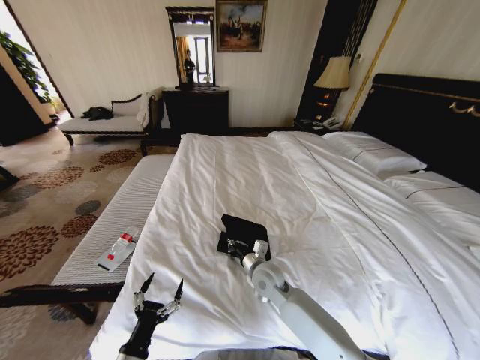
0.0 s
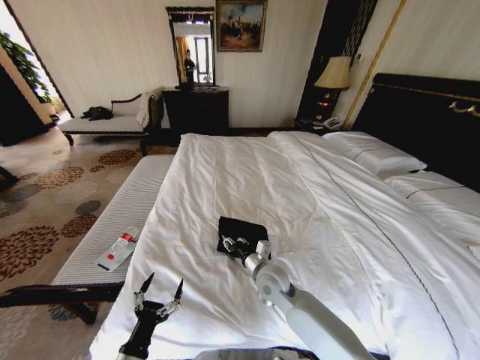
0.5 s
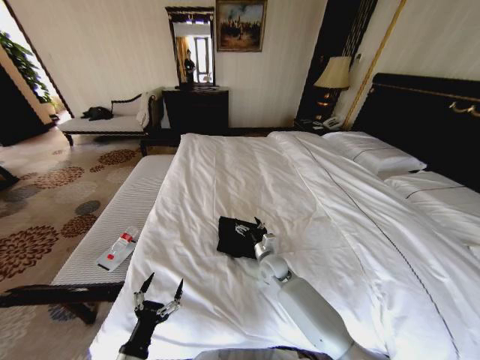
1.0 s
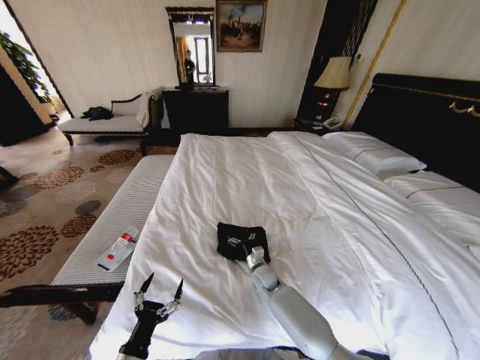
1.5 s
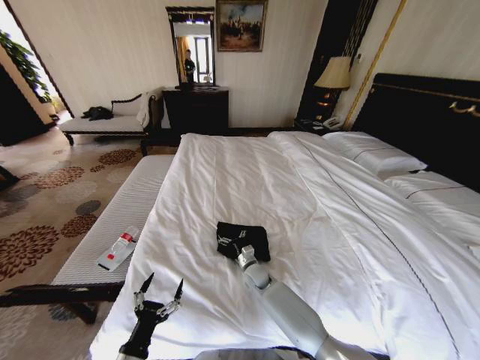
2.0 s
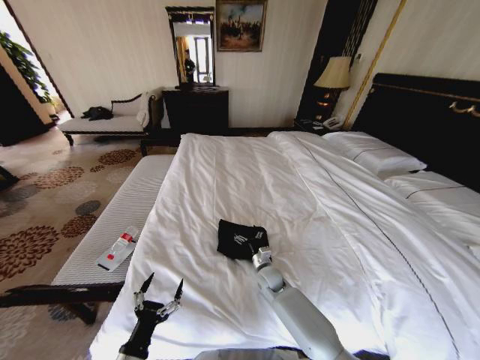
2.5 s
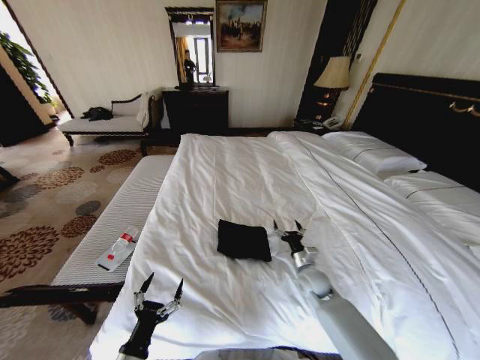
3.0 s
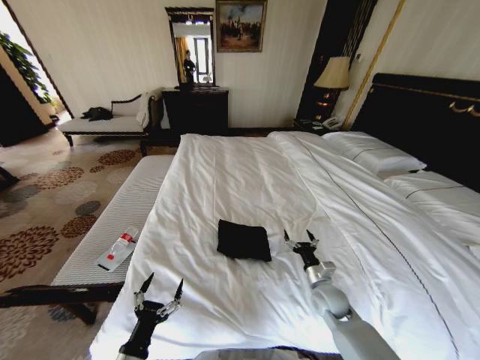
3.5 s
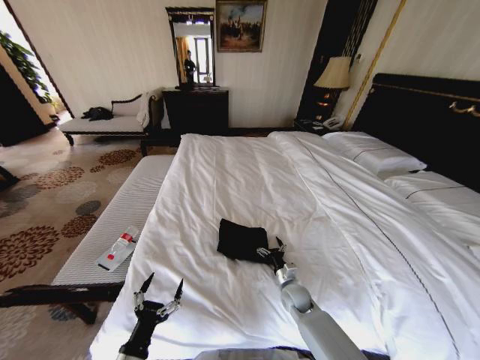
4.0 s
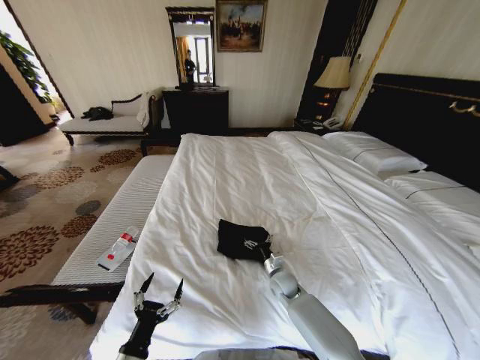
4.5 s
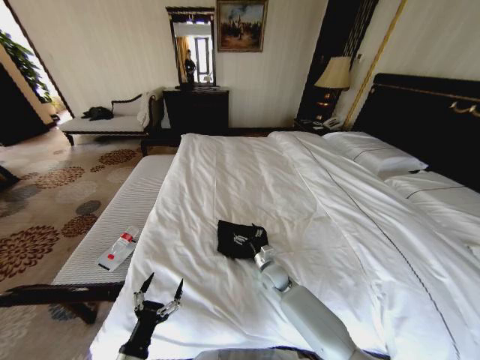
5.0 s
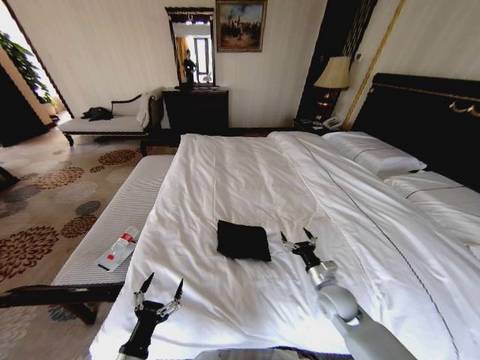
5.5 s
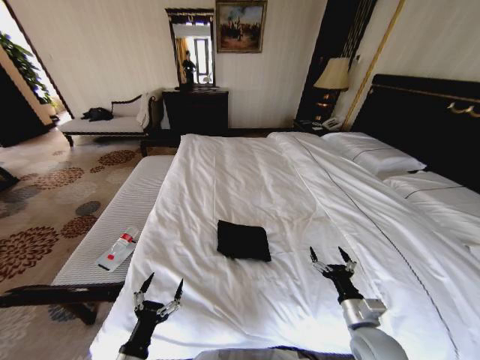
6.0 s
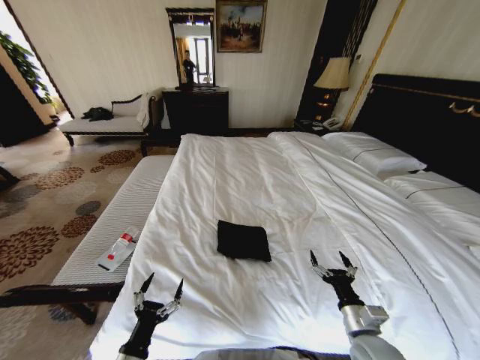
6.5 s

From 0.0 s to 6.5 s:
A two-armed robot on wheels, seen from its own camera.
Task of the whole recording: Fold the clothes on the bed.
From 0.0 s to 2.0 s: The right gripper heads downward and forward, covering approximately 15 cm, and opens.
From 2.0 s to 4.5 s: The right gripper heads to the right, covering approximately 10 cm.
From 4.5 s to 6.5 s: The right gripper travels backward, to the right and upward by about 25 cm.

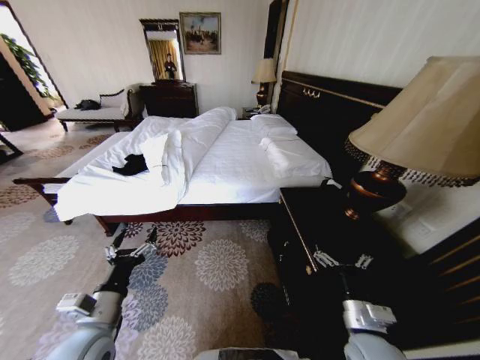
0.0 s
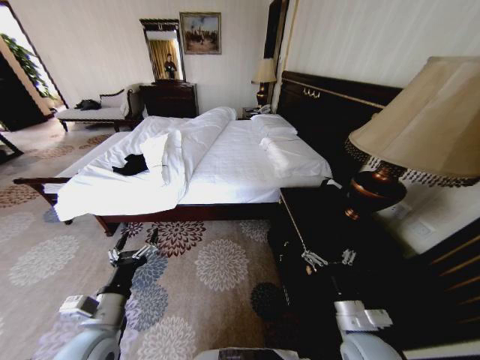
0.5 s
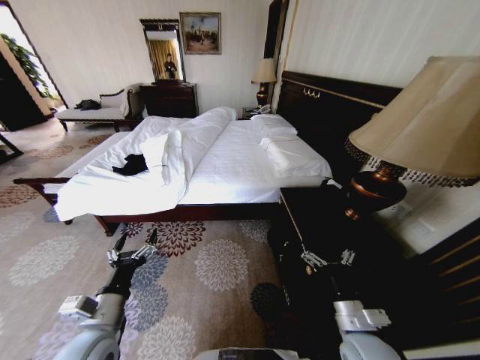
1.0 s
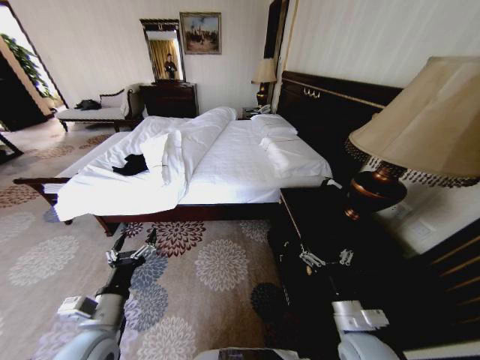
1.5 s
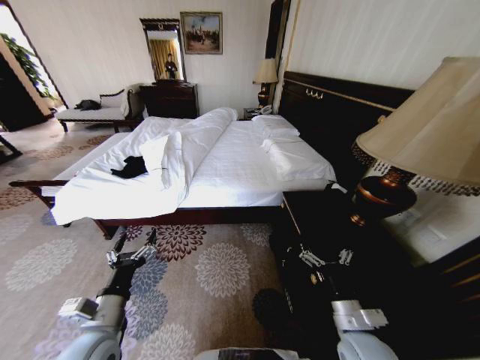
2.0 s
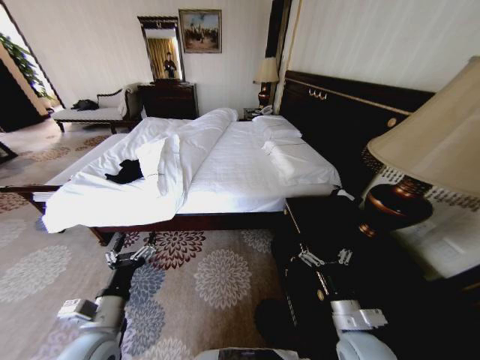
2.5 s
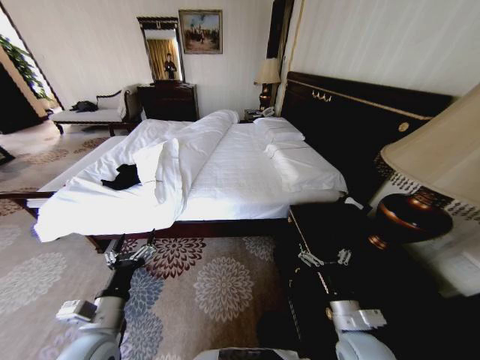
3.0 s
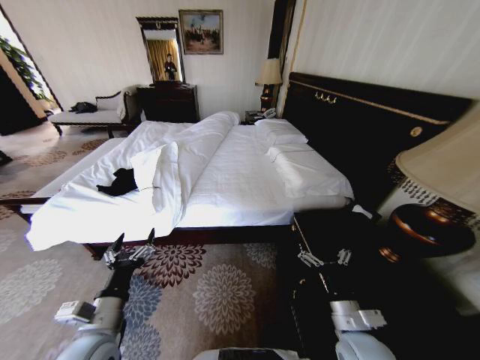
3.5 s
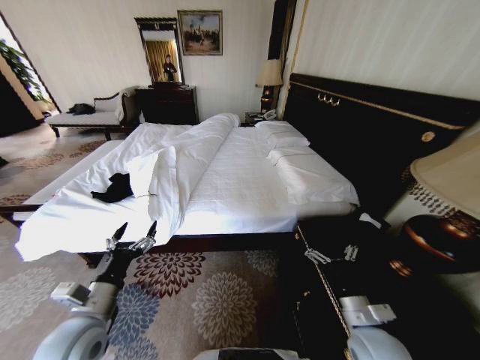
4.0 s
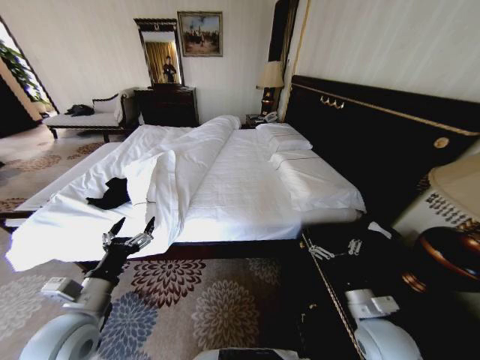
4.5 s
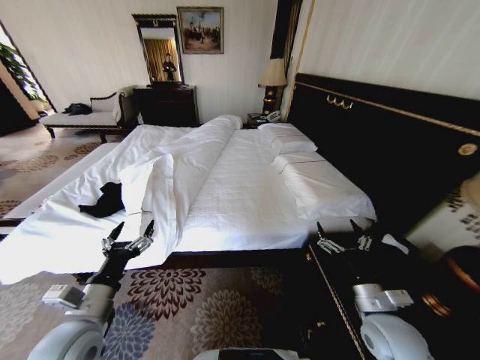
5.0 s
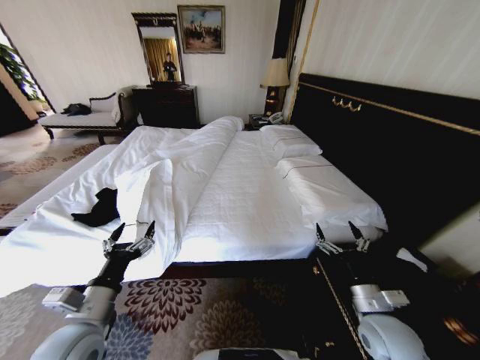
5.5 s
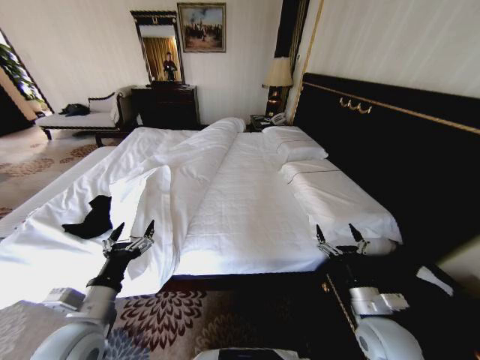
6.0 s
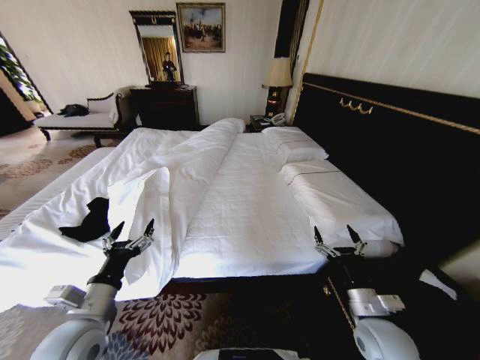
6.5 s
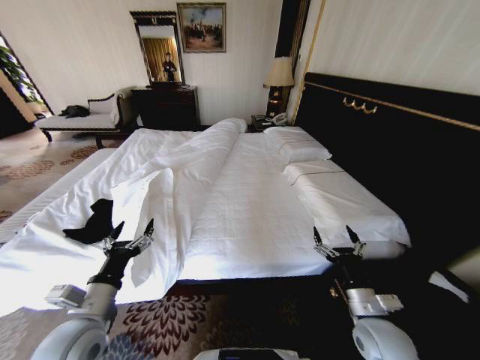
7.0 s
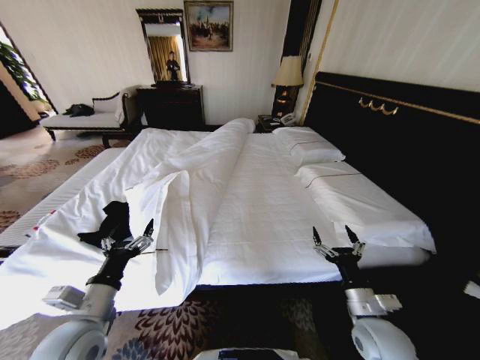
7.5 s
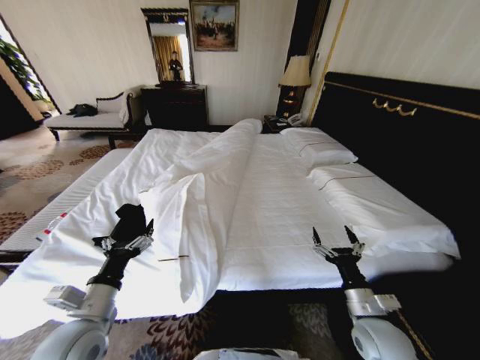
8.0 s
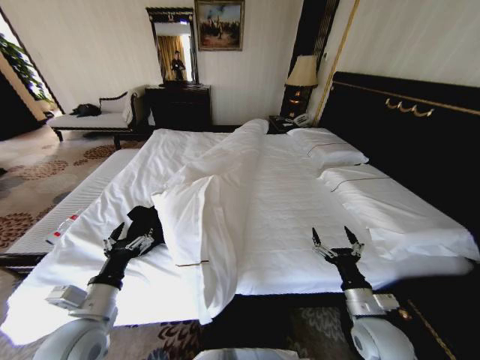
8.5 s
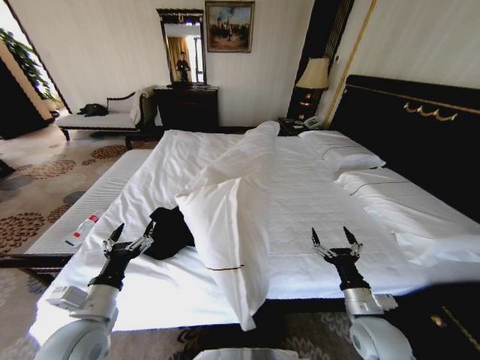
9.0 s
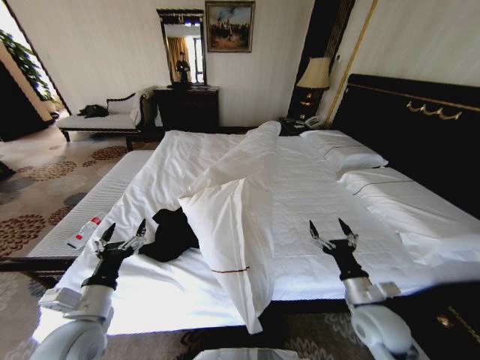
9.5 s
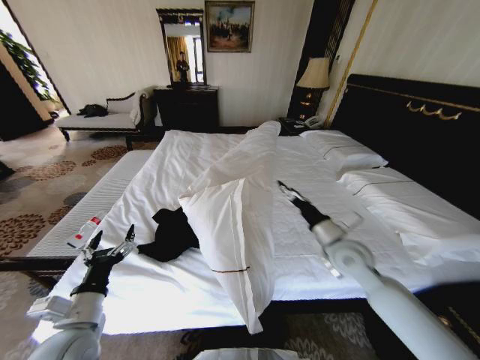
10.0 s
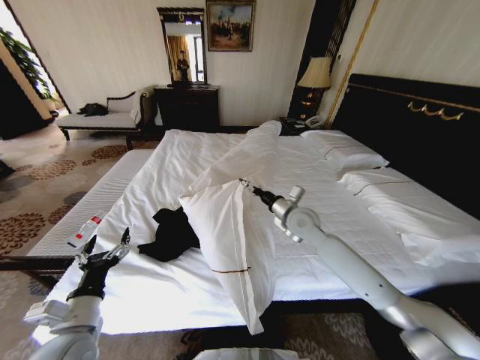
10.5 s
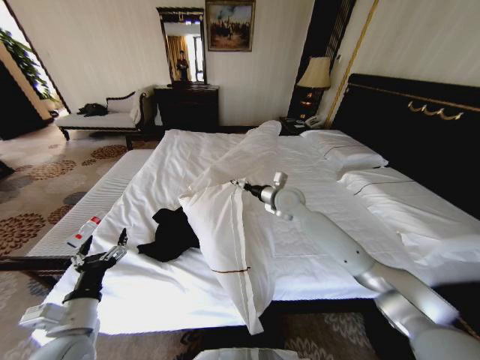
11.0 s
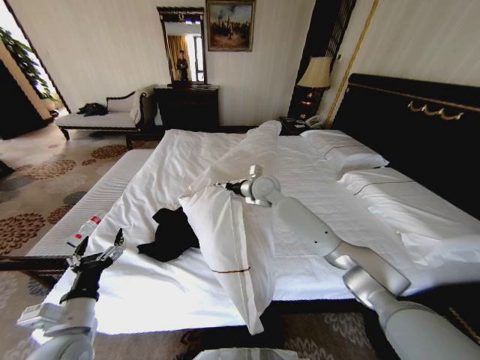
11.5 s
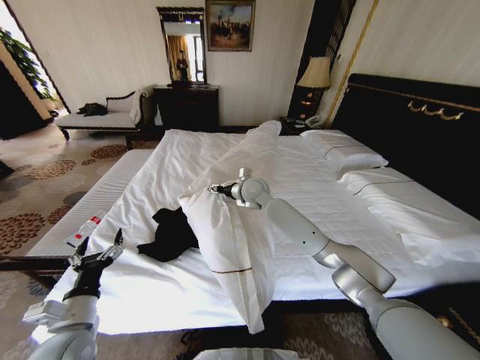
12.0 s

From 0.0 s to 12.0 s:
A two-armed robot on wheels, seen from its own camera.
Task of the whole recording: Fold the clothes on the bed.
From 8.0 s to 10.0 s: The right gripper is displaced forward and upward by about 20 cm.
From 10.0 s to 12.0 s: The right gripper moves to the left and forward, roughly 30 cm.

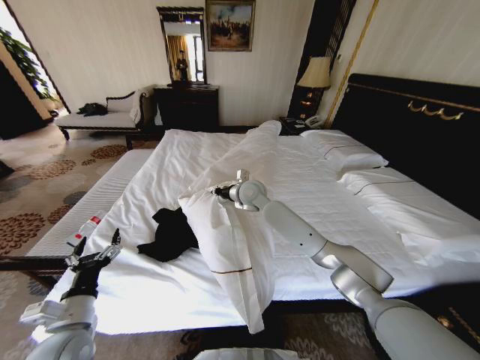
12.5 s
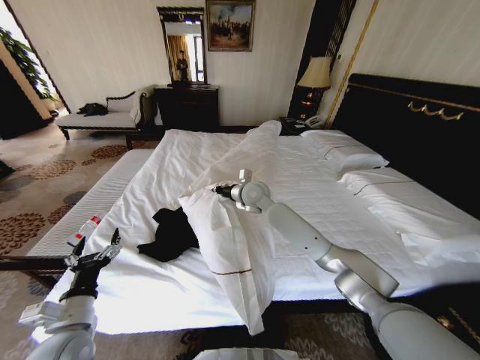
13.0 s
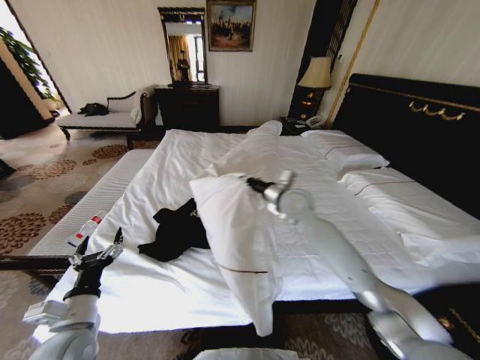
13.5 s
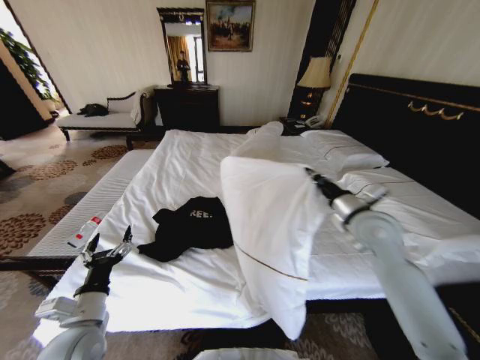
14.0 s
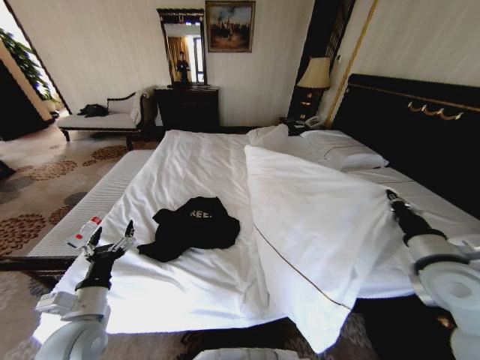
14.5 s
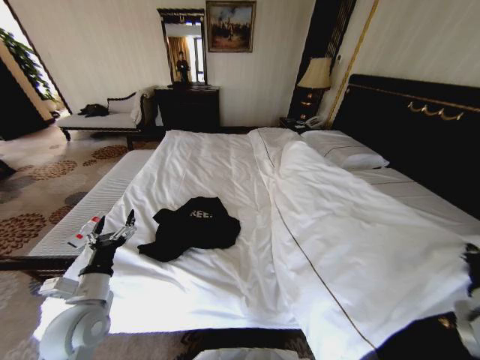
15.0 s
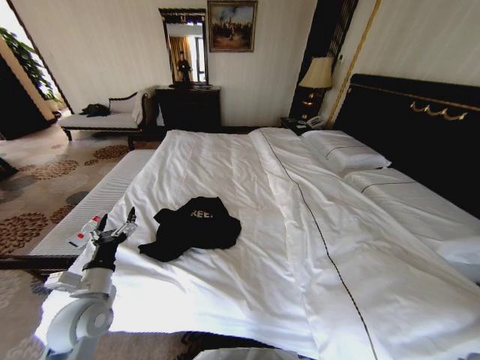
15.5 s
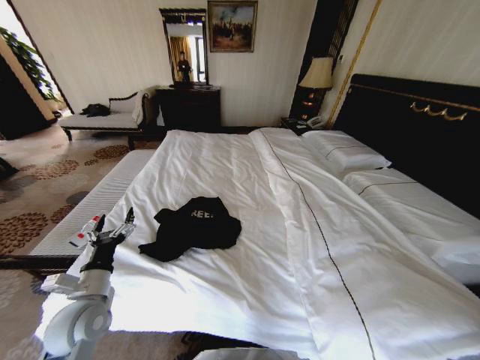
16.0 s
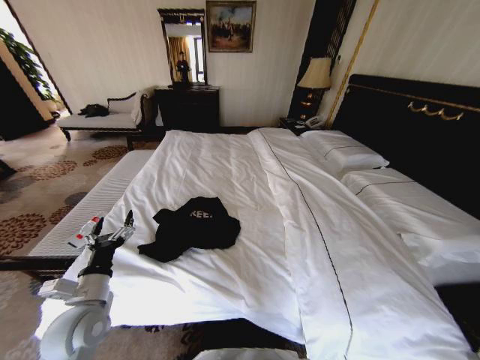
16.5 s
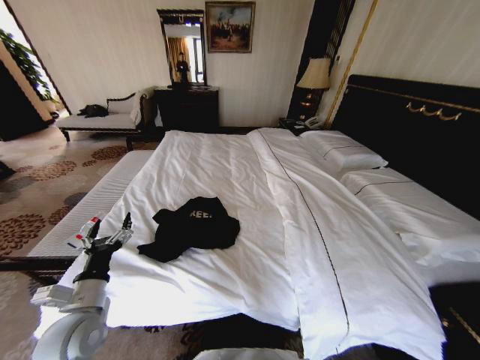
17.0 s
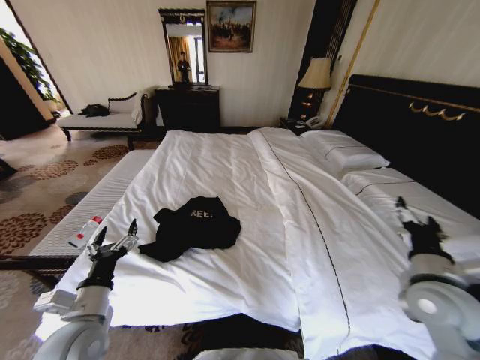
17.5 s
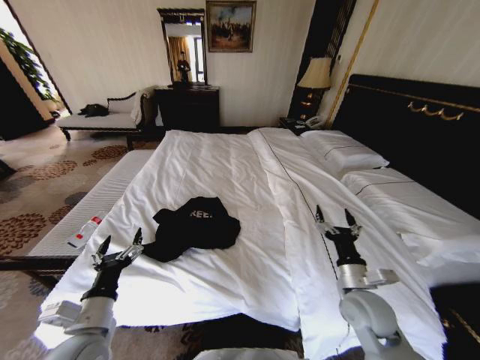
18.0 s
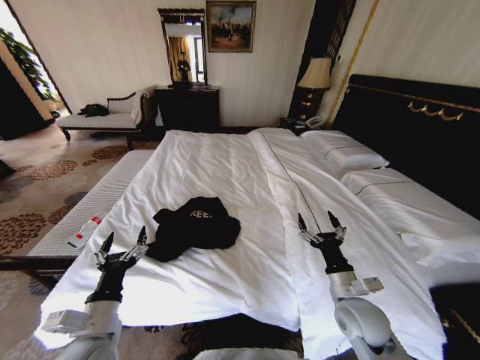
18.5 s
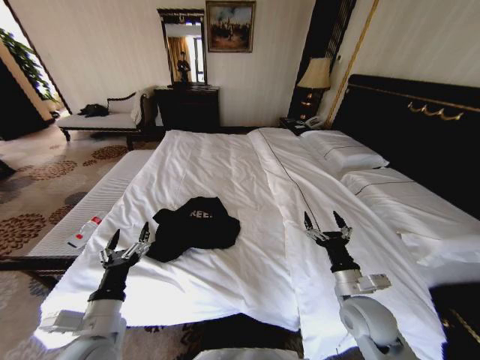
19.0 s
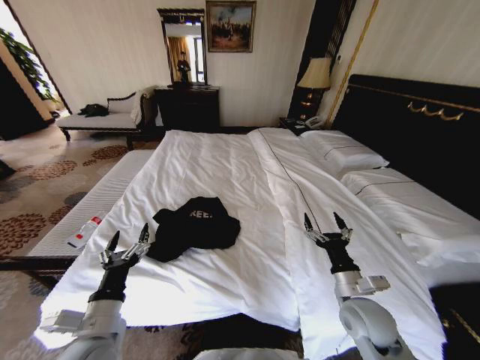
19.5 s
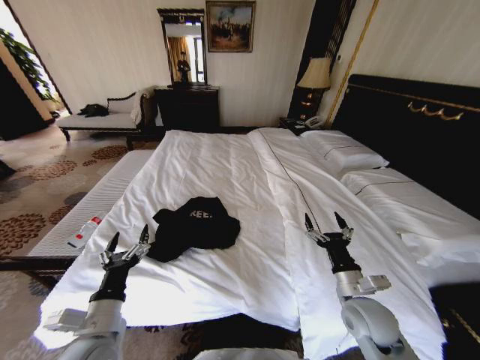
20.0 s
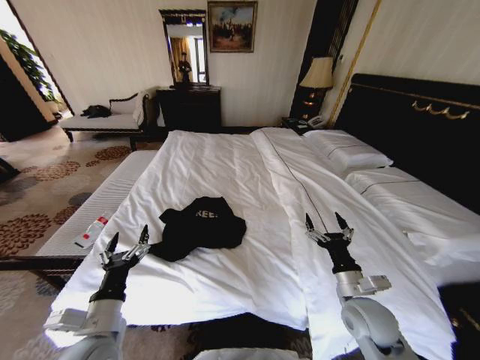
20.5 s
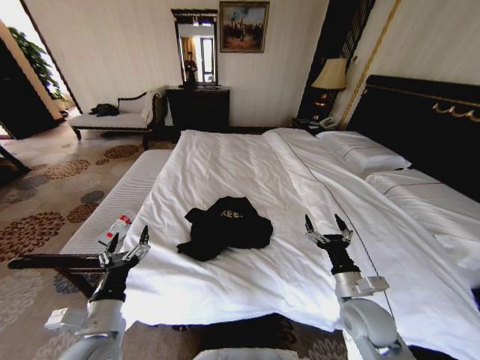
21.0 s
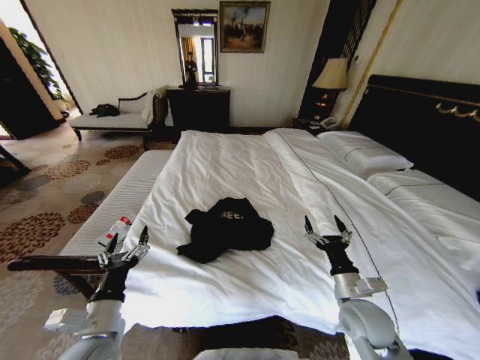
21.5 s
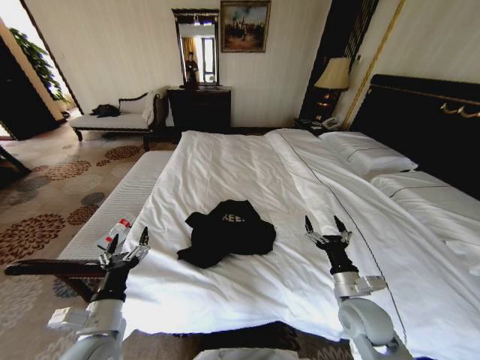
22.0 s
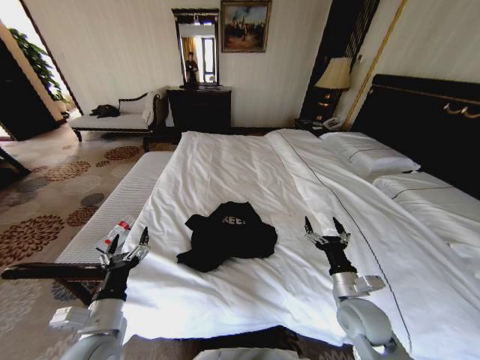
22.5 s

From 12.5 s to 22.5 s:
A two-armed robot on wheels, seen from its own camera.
Task of the whole recording: Fold the clothes on the bed.
From 12.5 s to 14.5 s: The right gripper shifts roughly 50 cm to the right and backward.
From 14.5 s to 16.5 s: The right gripper is displaced backward, downward and to the right by some 20 cm, and opens.
From 16.5 s to 18.5 s: The left gripper goes approximately 5 cm backward. Meanwhile the right gripper travels to the left and forward by about 25 cm, and opens its fingers.
From 18.5 s to 20.5 s: There are only small adjustments of the grippers.
